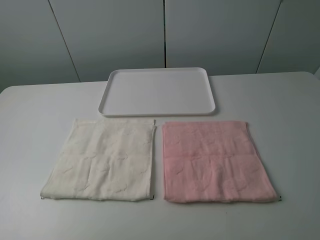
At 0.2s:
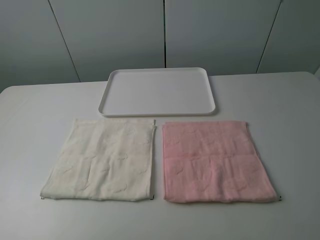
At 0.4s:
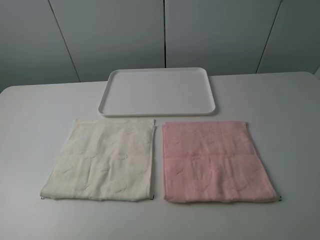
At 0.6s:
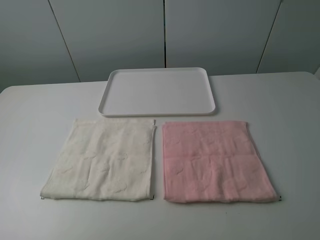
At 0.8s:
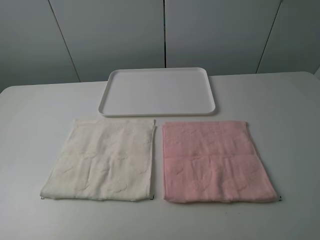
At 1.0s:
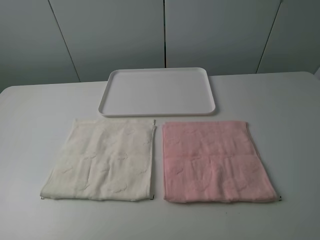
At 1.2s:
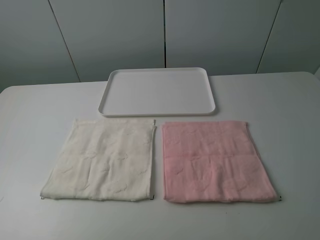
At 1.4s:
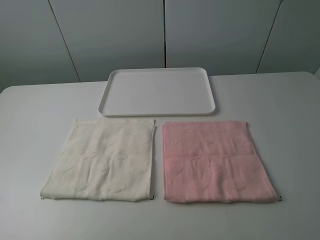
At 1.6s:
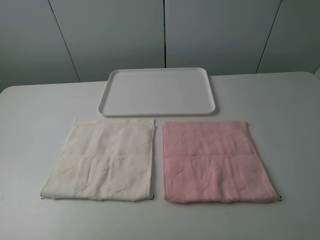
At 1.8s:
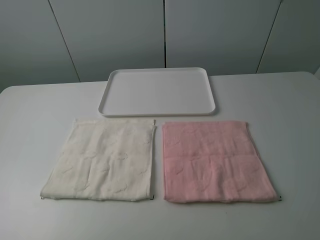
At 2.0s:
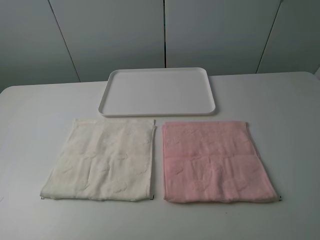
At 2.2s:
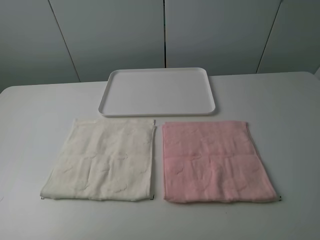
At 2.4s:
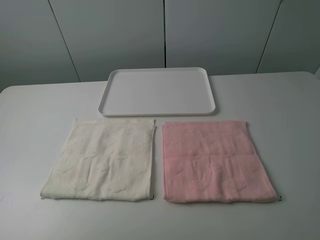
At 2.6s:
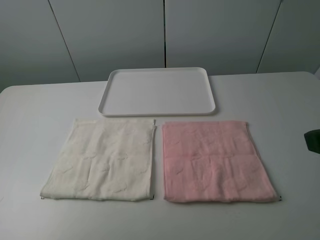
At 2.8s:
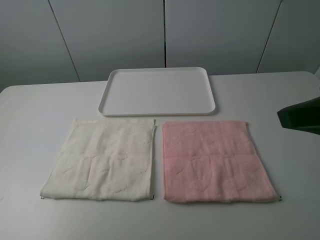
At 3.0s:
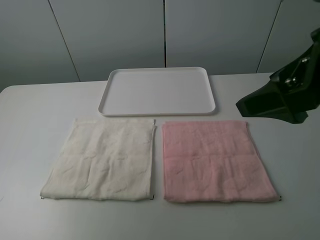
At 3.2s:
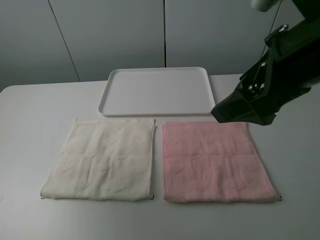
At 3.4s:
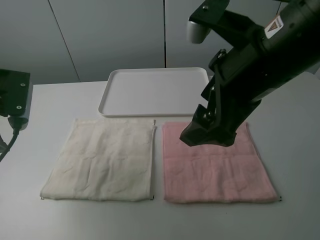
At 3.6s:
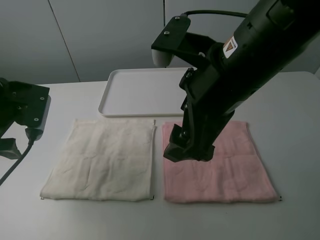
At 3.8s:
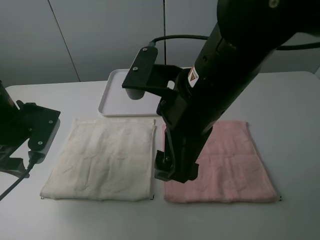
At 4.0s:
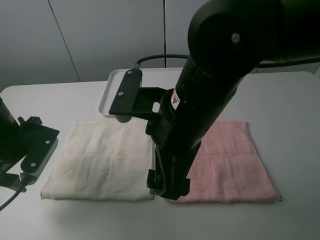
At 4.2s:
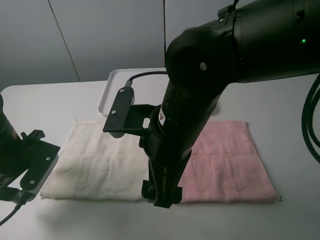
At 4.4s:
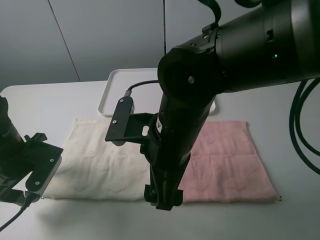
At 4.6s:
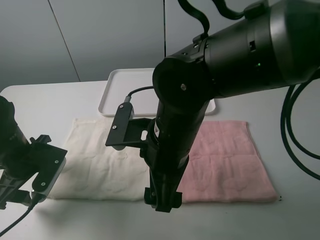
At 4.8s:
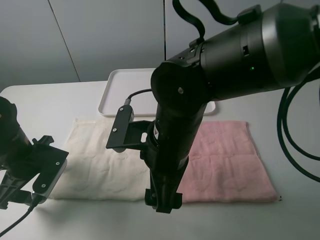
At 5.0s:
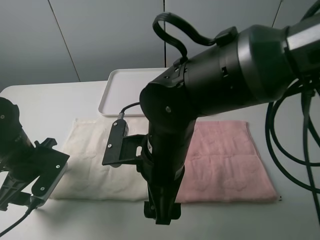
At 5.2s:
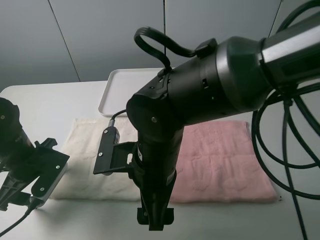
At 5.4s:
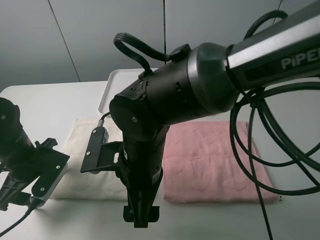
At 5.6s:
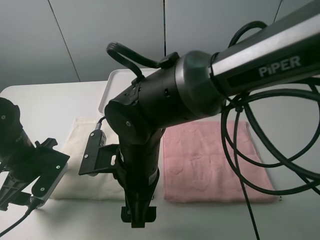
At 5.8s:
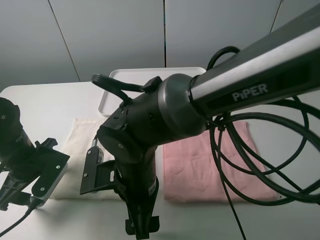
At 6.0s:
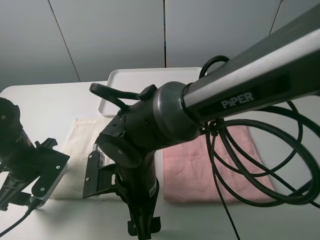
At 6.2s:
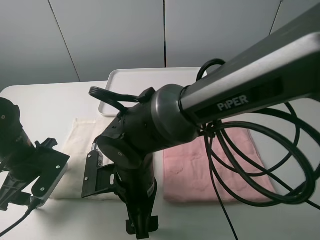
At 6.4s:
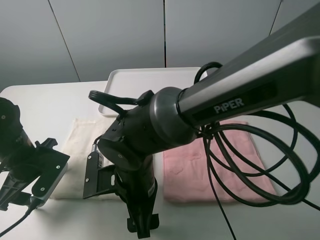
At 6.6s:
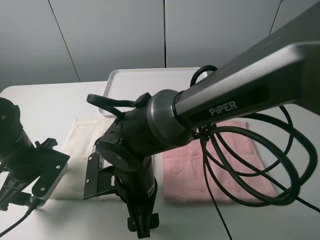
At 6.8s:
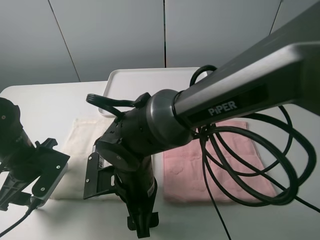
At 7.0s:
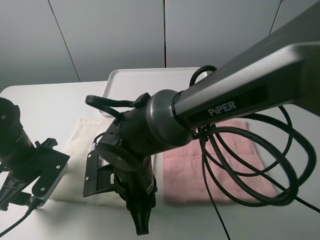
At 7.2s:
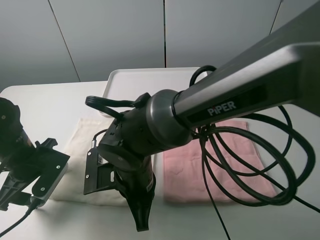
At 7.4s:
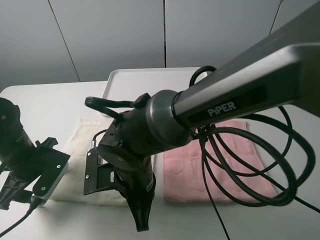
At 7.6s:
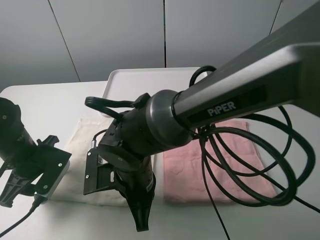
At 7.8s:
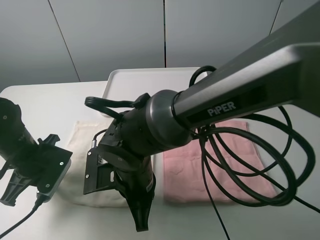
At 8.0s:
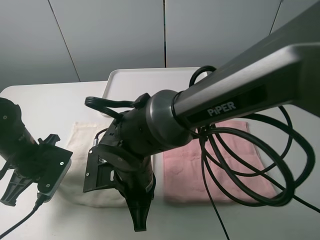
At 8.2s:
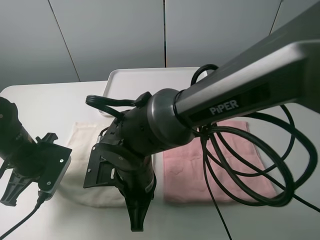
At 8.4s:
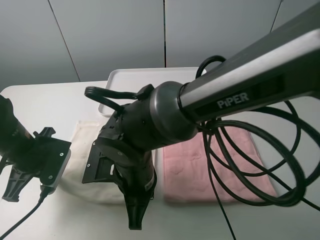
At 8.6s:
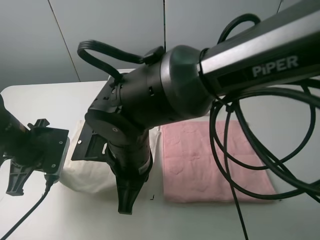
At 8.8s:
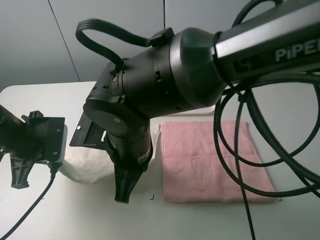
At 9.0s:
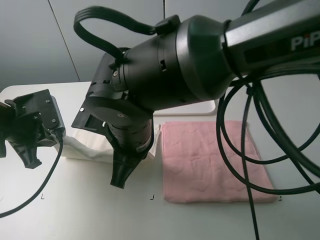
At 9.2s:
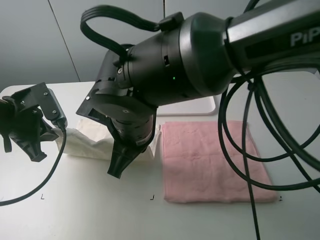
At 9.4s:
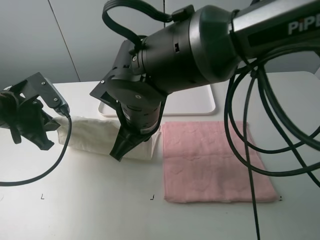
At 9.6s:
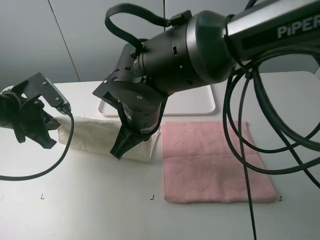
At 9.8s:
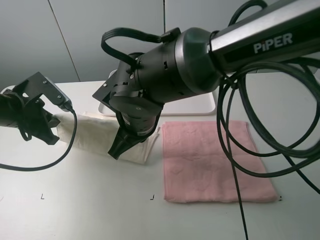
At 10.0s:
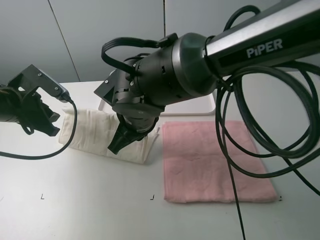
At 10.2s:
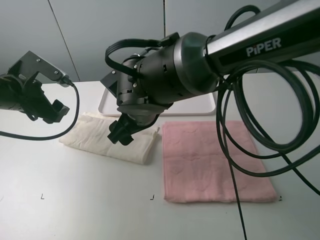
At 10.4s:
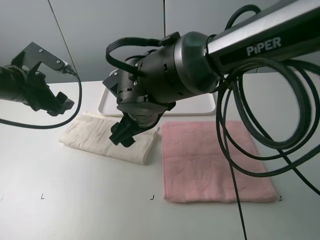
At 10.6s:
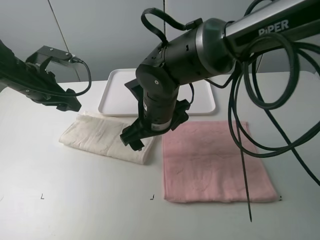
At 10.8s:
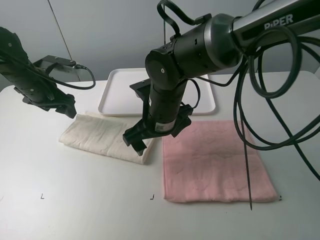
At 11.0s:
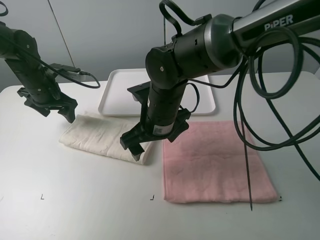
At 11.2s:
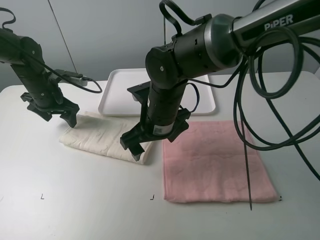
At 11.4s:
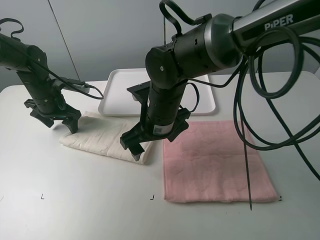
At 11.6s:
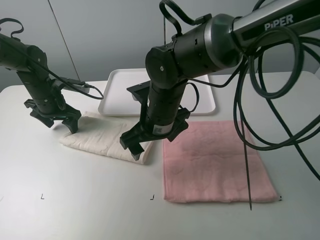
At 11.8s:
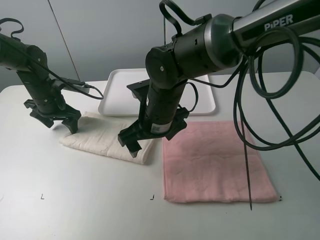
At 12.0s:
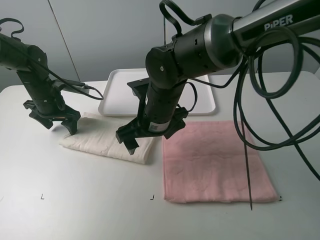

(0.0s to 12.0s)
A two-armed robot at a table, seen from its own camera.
Task of the whole recording: fold one of the towels by two grippers and place it on the tray,then fold another towel by two grippers and place it on the folded towel.
Step, 0.0s - 7.6s: Grasp the white towel with the left gripper.
Step, 7.8s - 10.2s: Fold the white towel upwards with the left gripper.
Step, 10.6s - 11.6s: Press the white towel with the left gripper.
0.0s - 1.6s: The two grippers keep their place.
1.6s - 3.0s: The left gripper is displaced forward by some 20 cm. The right gripper moves forward and to the left, approximately 20 cm.
3.0s - 4.4s: The left gripper travels downward by roughly 20 cm, while the right gripper shifts some 20 cm to the left and downward.
4.4s - 6.0s: The right gripper goes about 10 cm downward and to the left.
6.0s - 7.6s: The right gripper closes its fingers.
7.6s - 9.0s: The grippers both shift upward by roughly 10 cm. The left gripper closes its fingers.
9.0s - 10.4s: Both grippers move forward, approximately 5 cm. The right gripper opens, while the left gripper opens its fingers.
10.4s - 12.0s: The left gripper heads downward and forward, covering approximately 10 cm.

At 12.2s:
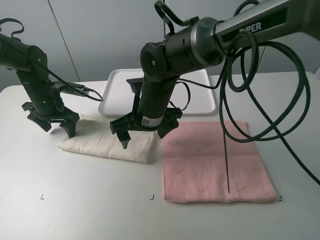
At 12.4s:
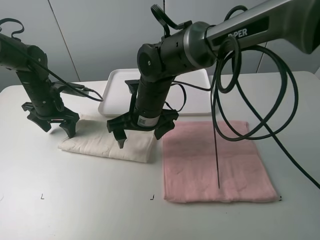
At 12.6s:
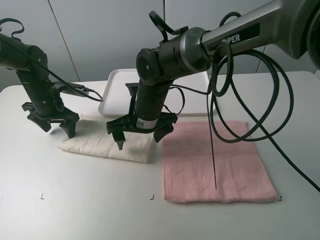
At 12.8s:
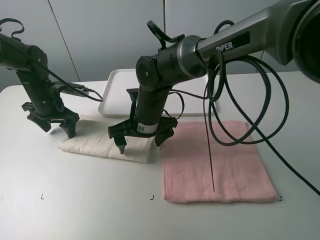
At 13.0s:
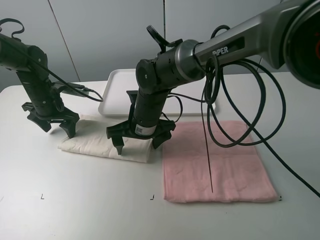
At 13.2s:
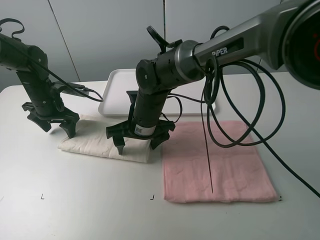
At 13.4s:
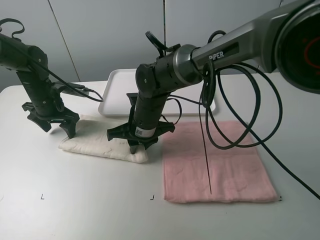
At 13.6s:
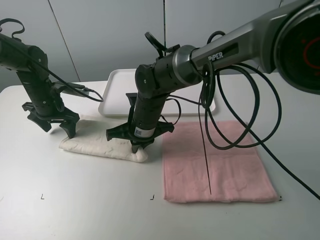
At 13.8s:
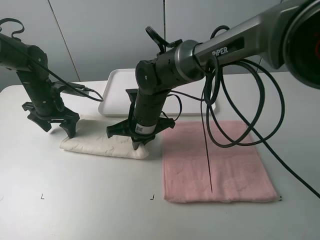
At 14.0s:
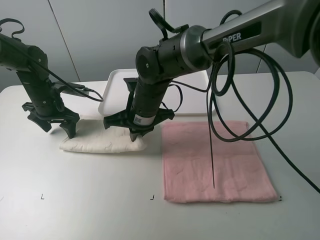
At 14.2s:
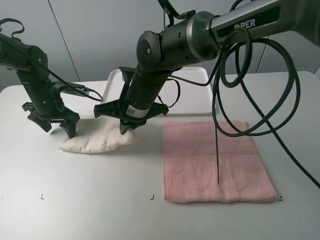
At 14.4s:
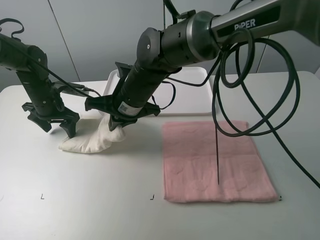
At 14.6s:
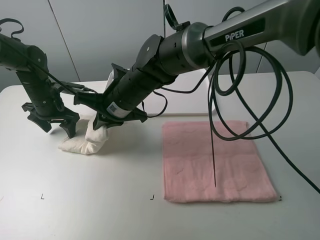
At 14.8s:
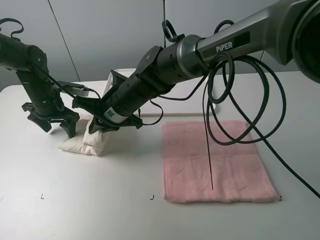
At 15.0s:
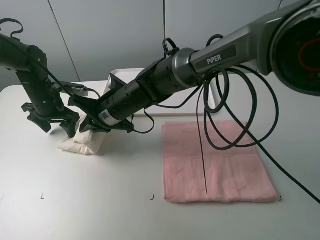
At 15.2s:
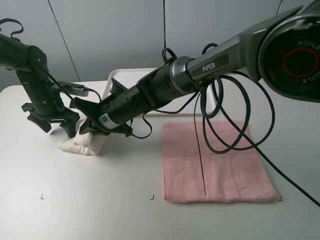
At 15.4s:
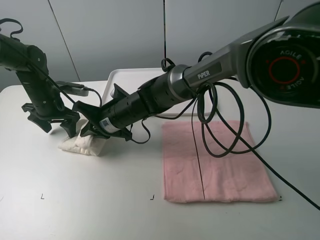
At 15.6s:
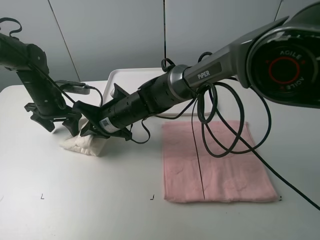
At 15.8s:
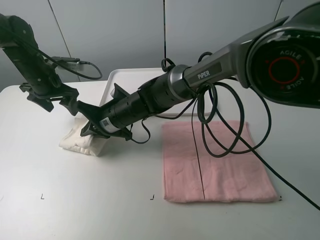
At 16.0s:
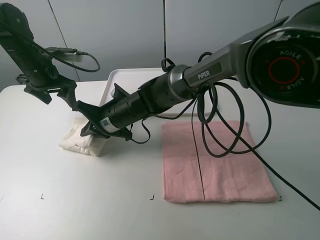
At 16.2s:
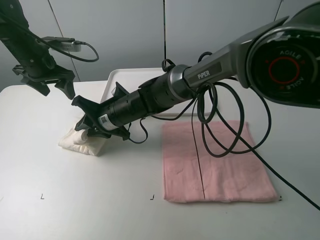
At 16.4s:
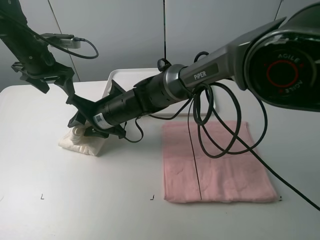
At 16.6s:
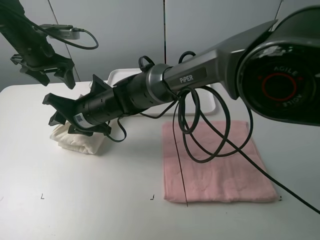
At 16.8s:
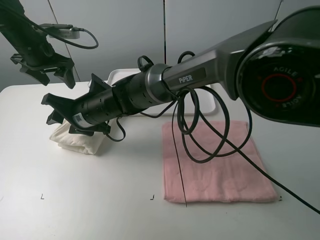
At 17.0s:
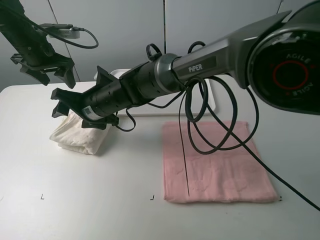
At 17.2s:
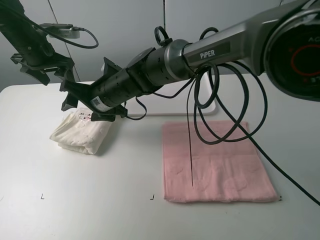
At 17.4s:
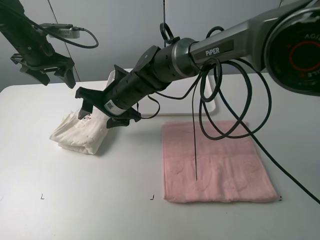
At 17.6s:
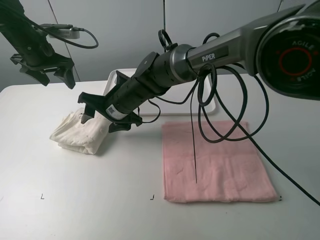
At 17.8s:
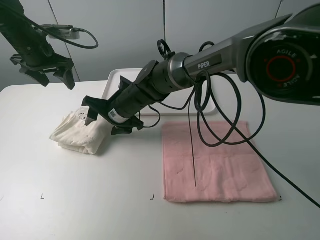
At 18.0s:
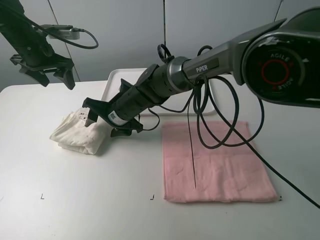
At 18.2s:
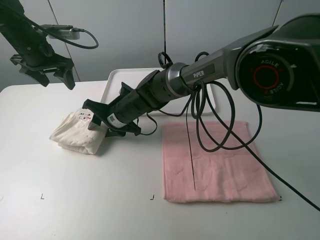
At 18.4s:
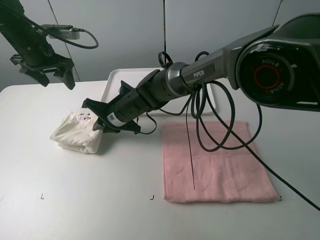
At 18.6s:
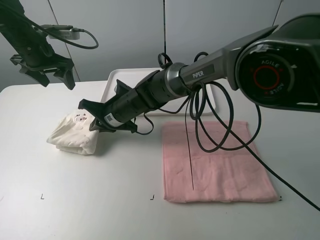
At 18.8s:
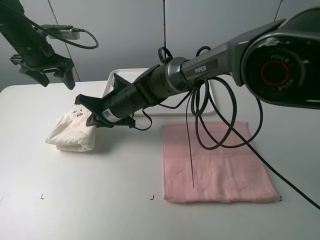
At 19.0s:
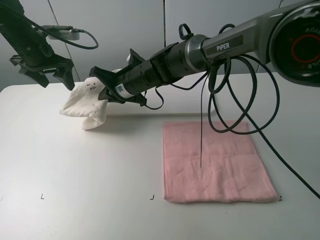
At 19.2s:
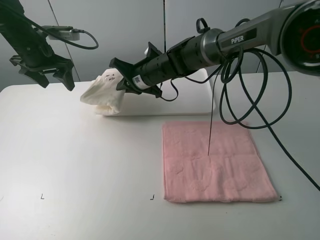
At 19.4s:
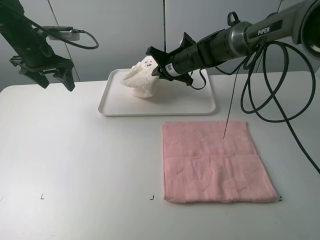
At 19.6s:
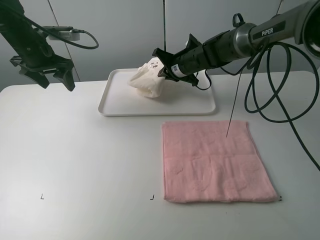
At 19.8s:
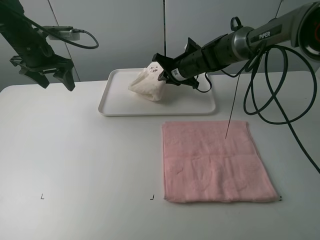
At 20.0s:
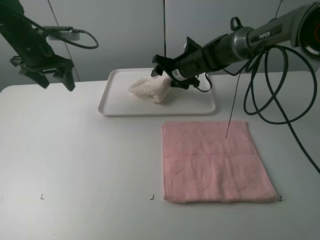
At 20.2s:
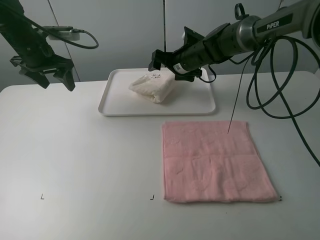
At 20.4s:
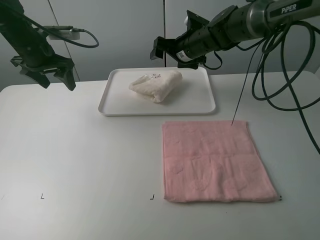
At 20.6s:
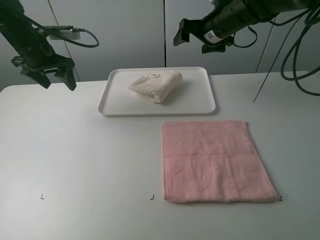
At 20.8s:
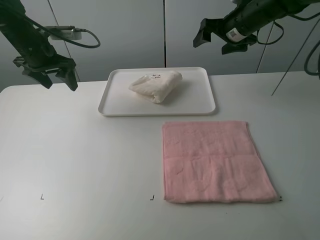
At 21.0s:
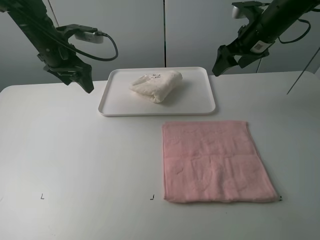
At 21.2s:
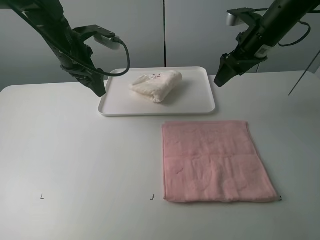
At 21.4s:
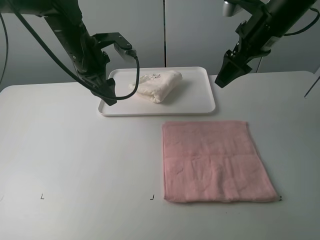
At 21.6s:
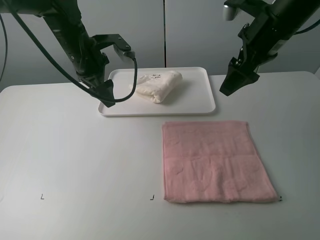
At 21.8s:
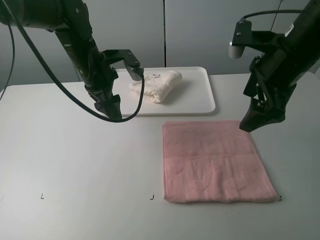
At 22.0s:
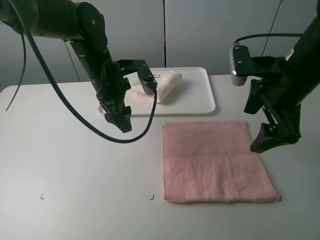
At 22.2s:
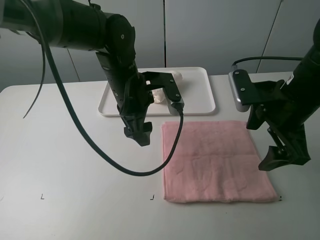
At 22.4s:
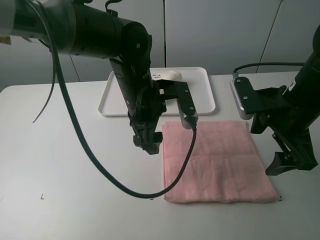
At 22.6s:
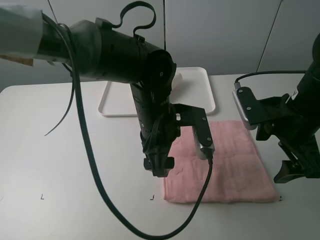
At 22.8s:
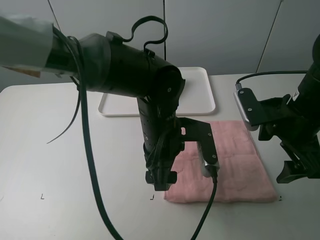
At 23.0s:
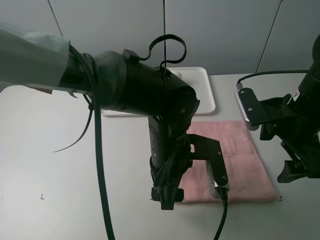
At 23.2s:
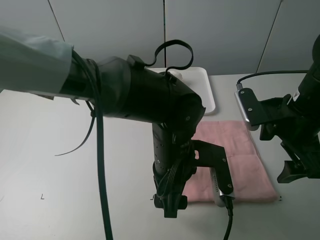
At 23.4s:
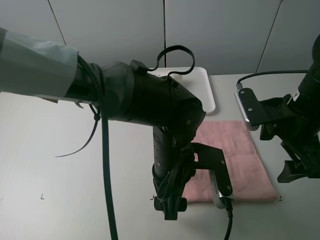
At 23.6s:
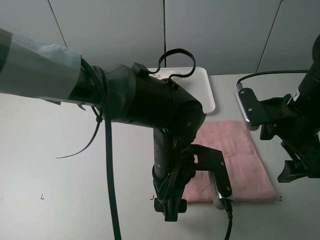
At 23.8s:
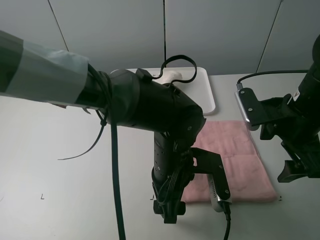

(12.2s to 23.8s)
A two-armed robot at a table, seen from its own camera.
Task of the whole recording: fold one of the towels by two grippers and place it on the tray,then fold another towel by two grippers and place it on the folded towel.
Step, 12.2s - 13.8s: Grasp the white towel with the right gripper.
Step, 14.0s - 16.8s: Fold the white towel from right to left with right gripper.
Step, 17.0s - 18.6s: Grasp the white towel with the right gripper.
Step, 18.8s - 20.2s: Move the white towel to the plate with the right gripper.
12.2s - 13.6s: The right gripper ends up about 5 cm from where it was, and closes up.
13.6s - 15.0s: The right gripper ends up about 5 cm from where it was.
15.0s - 16.6s: The right gripper opens. The left gripper heads upward, covering about 10 cm.
16.6s - 18.0s: The right gripper travels to the right by some 5 cm.
18.0s - 19.4s: The right gripper is displaced to the right and forward by approximately 20 cm, and closes up.
19.4s - 21.0s: The right gripper is displaced to the right and upward by roughly 20 cm, and opens its fingers, while the left gripper moves to the right, about 5 cm.
21.0s - 22.4s: The right gripper goes approximately 20 cm backward; the left gripper moves to the right and backward, roughly 25 cm.
22.4s - 23.8s: The left gripper goes about 10 cm backward and downward.
